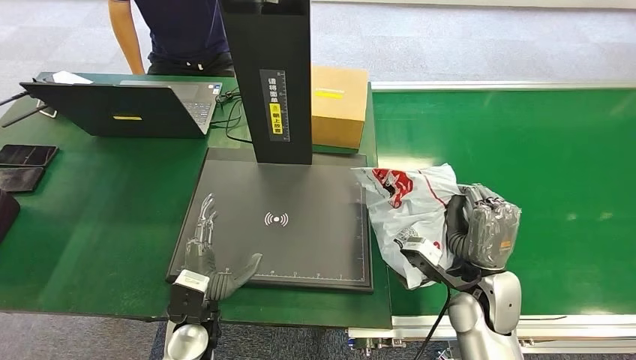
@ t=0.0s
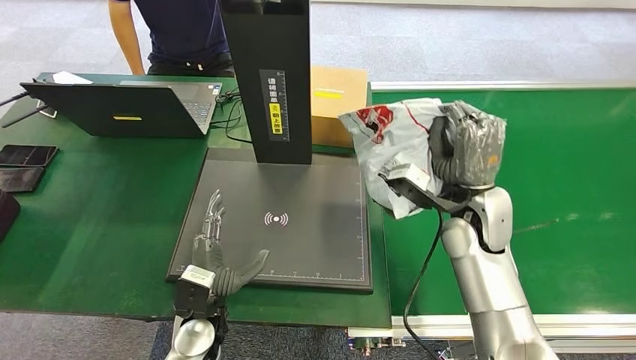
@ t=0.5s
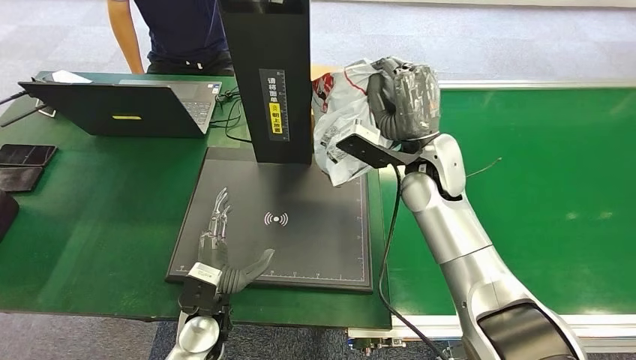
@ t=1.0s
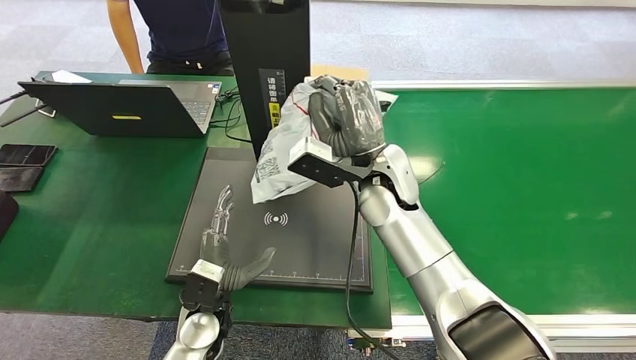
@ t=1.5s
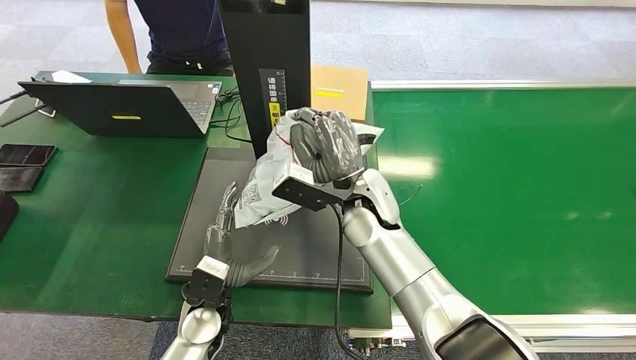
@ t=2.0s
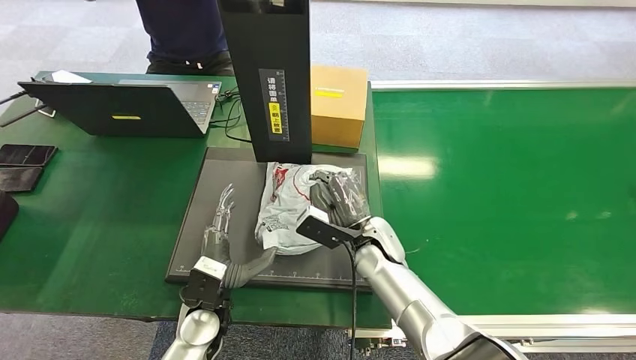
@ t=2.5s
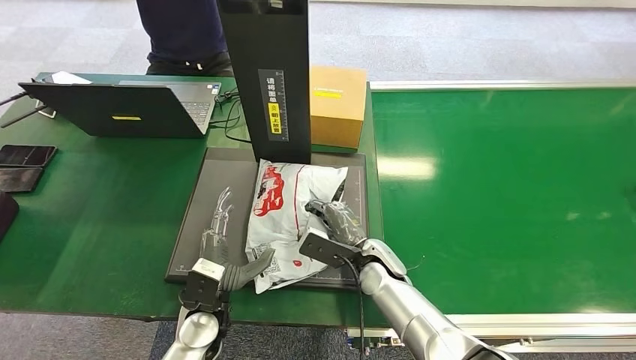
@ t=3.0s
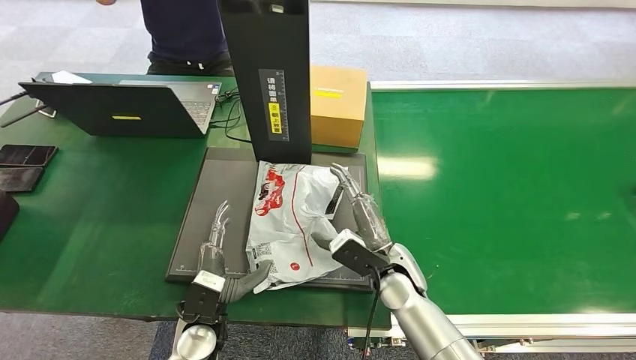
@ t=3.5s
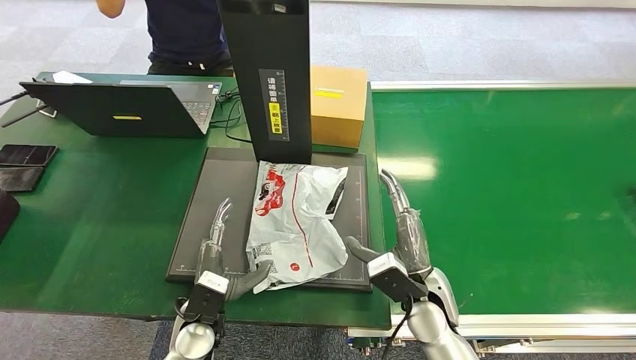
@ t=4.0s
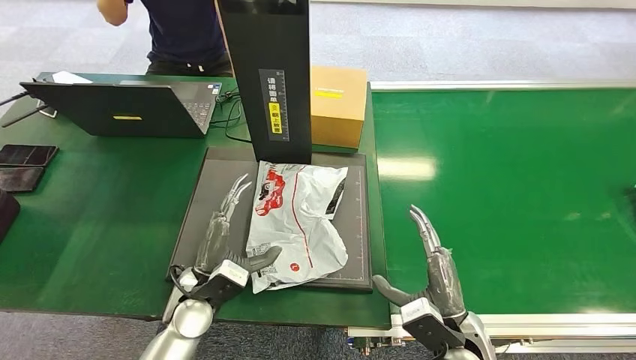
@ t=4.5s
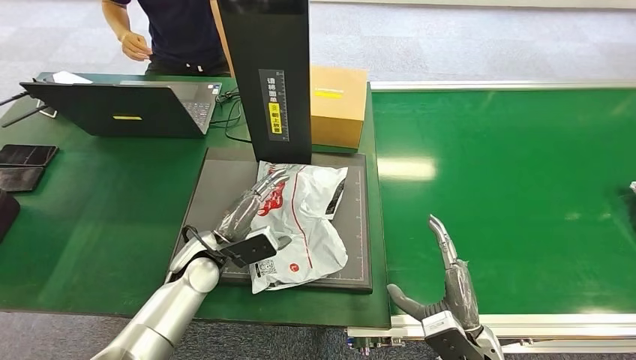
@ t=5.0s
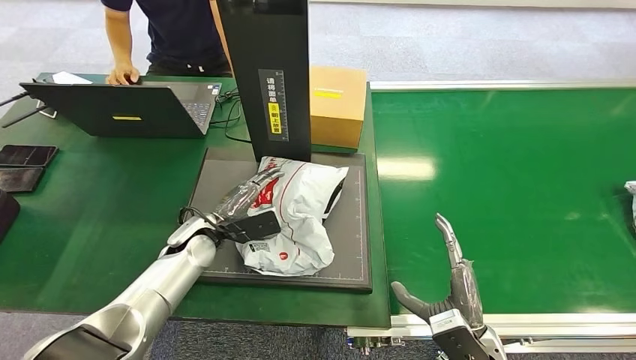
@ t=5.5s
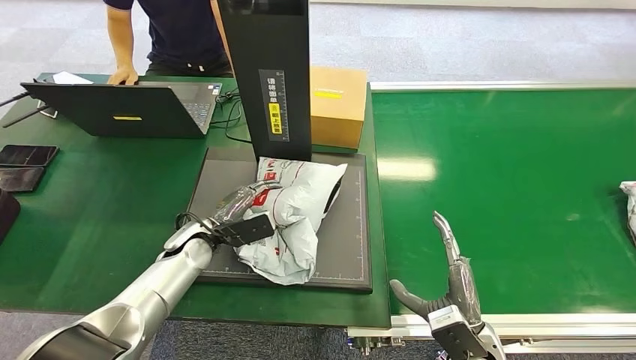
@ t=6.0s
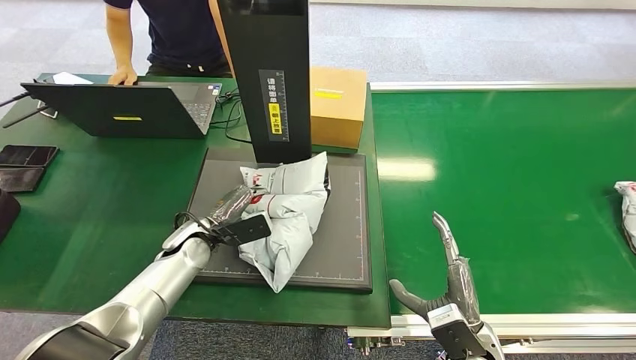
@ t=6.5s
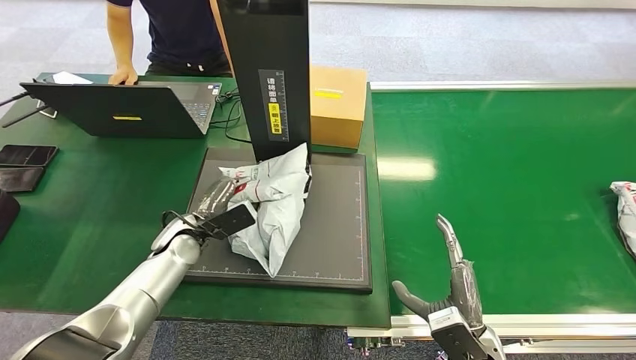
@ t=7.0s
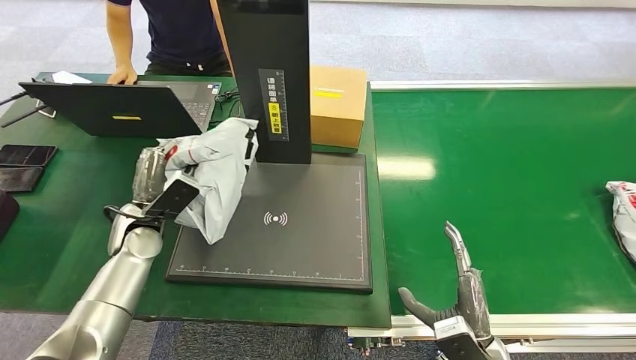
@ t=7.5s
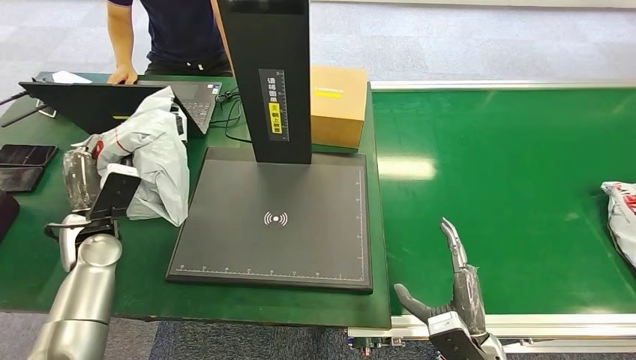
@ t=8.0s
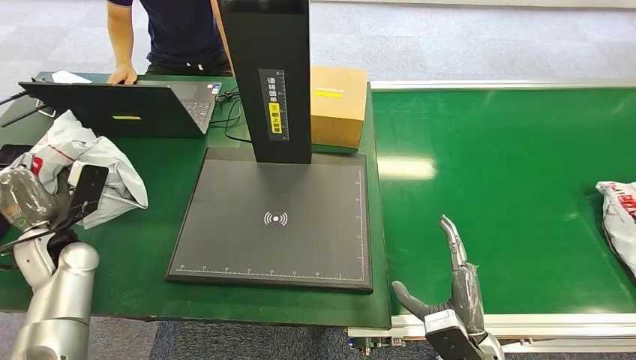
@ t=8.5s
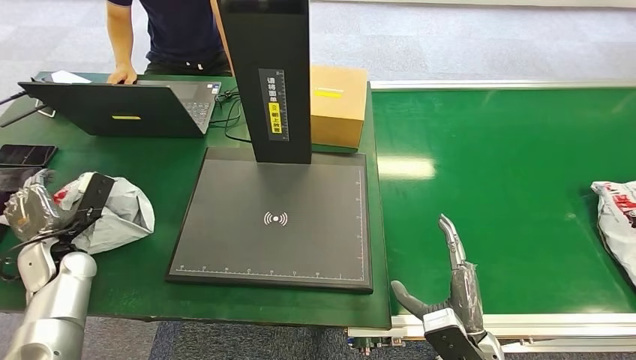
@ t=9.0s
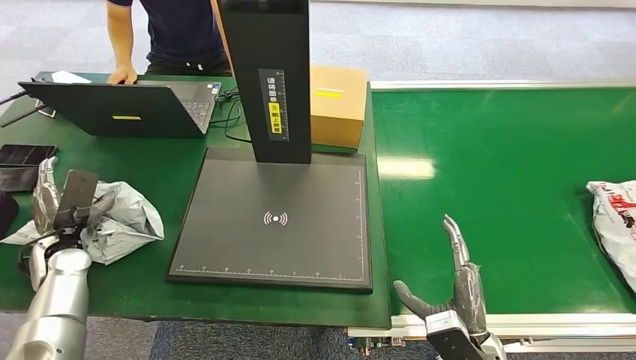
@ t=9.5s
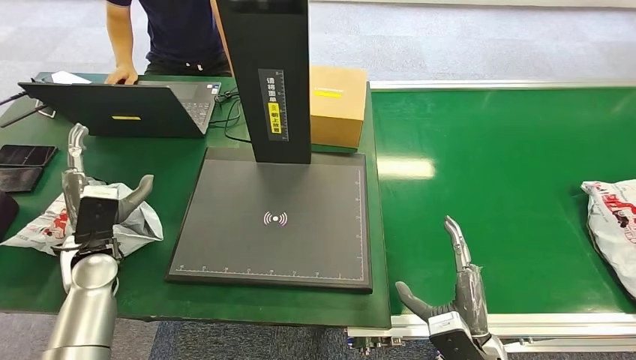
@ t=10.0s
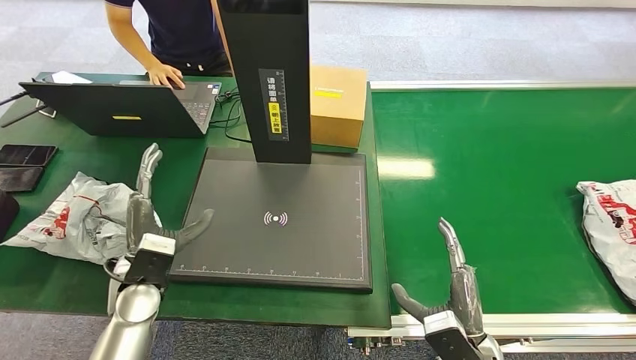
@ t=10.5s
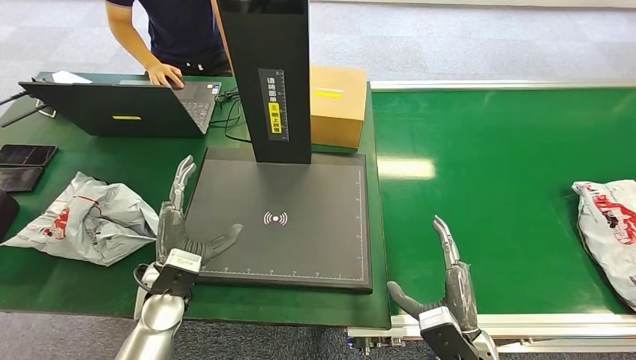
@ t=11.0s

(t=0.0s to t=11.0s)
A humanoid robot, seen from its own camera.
Step, t=1.0s - t=4.0s: Place the package onto the inbound machine.
Step, t=5.0s - t=7.5s: Pick up the package from the inbound machine.
Step, t=8.0s - t=11.0s: Place the package into the parcel locker.
t=2.0s - t=3.5s: The right hand moves downward, to the right and backward, some 15 cm.
t=3.5s - t=5.5s: The right hand moves backward and to the right, approximately 20 cm, while the left hand shifts some 15 cm forward.
t=5.5s - t=7.5s: The left hand heads to the left, covering some 10 cm.
t=7.5s - t=9.0s: The left hand shifts some 15 cm to the left.
t=9.0s - t=11.0s: The left hand is displaced to the right by approximately 20 cm.

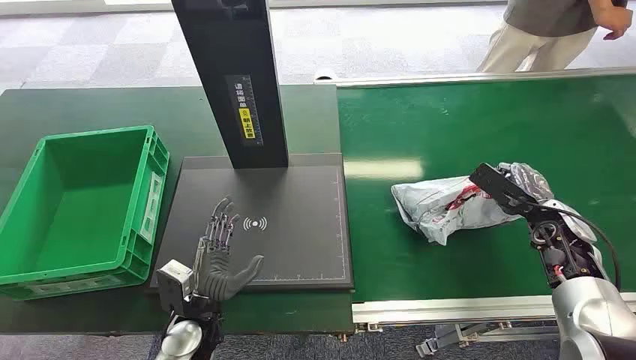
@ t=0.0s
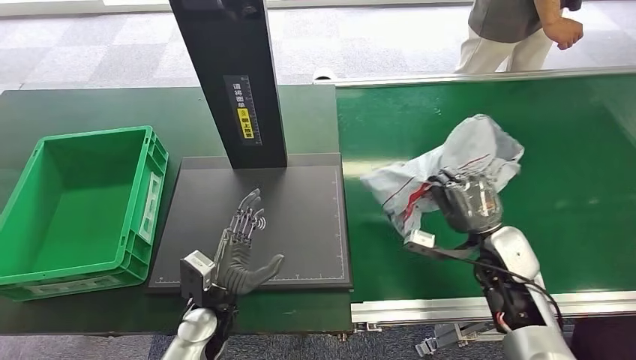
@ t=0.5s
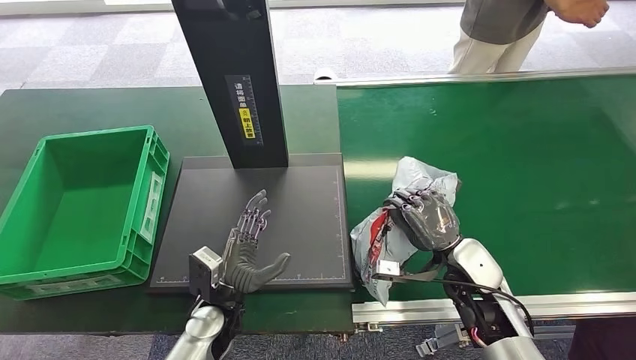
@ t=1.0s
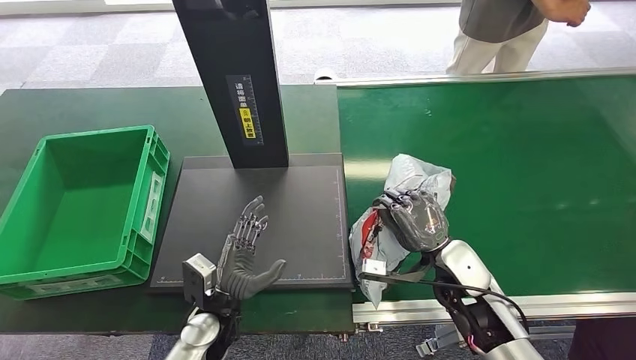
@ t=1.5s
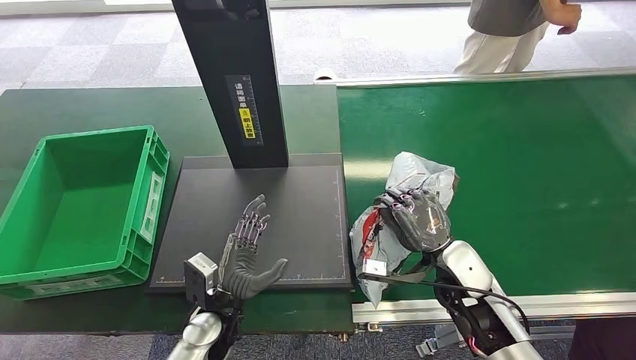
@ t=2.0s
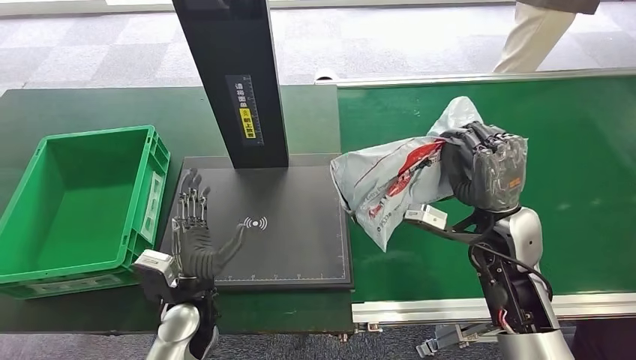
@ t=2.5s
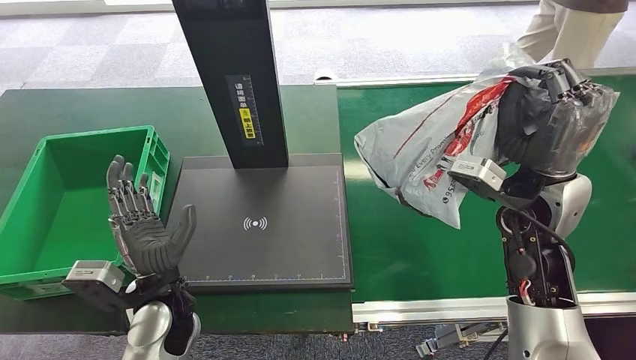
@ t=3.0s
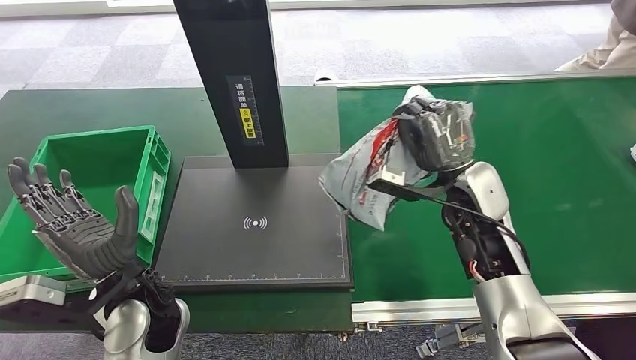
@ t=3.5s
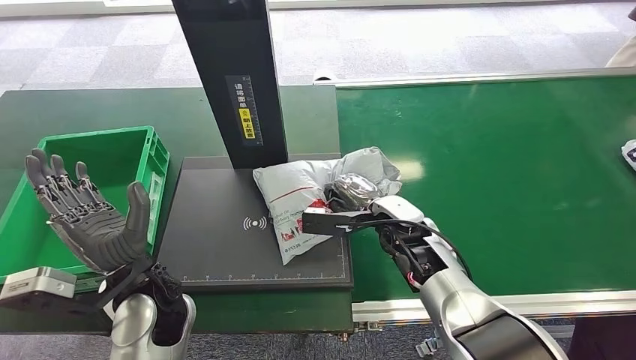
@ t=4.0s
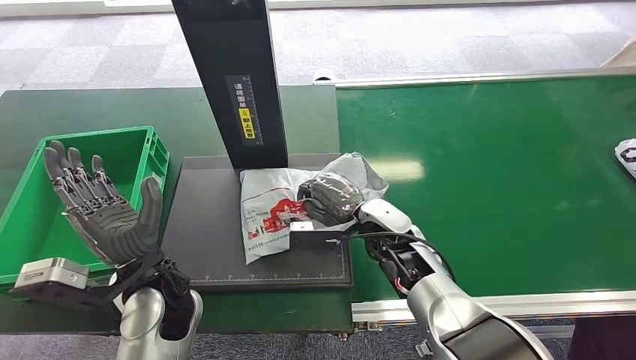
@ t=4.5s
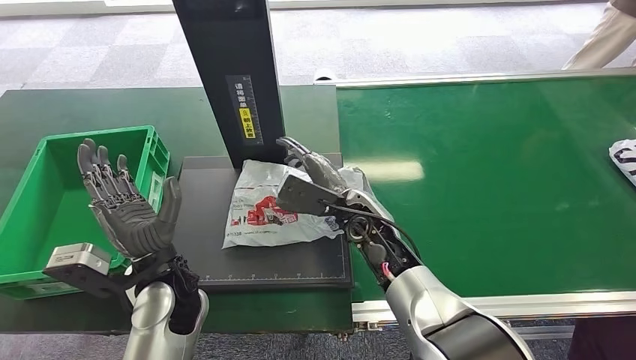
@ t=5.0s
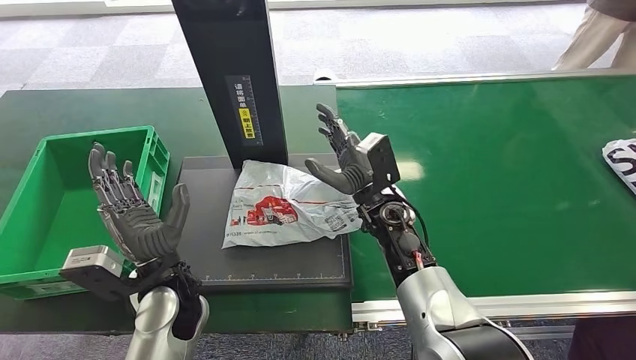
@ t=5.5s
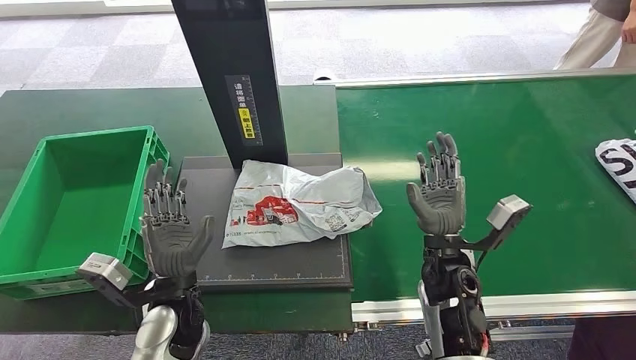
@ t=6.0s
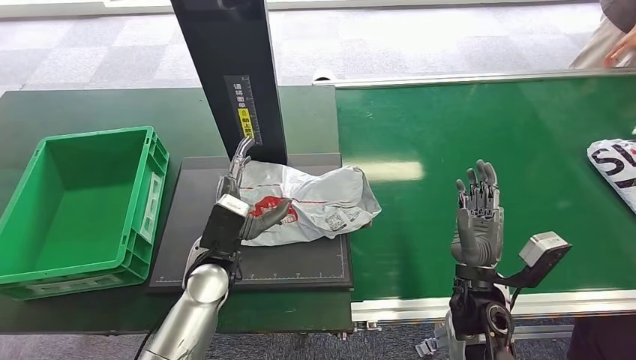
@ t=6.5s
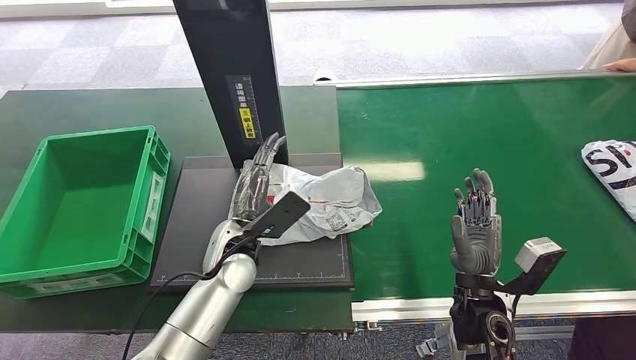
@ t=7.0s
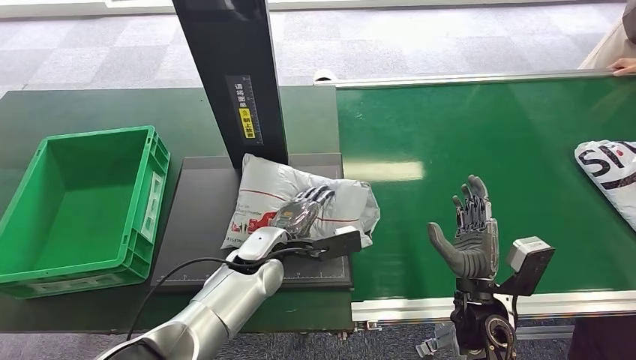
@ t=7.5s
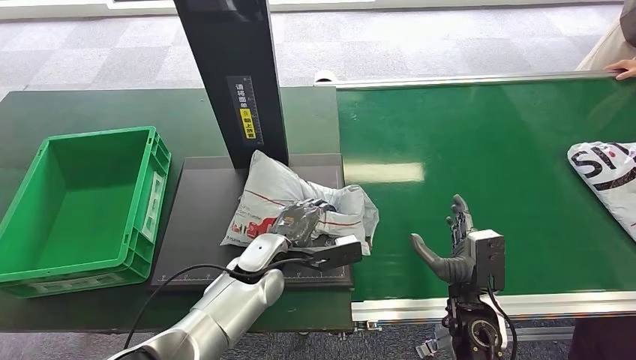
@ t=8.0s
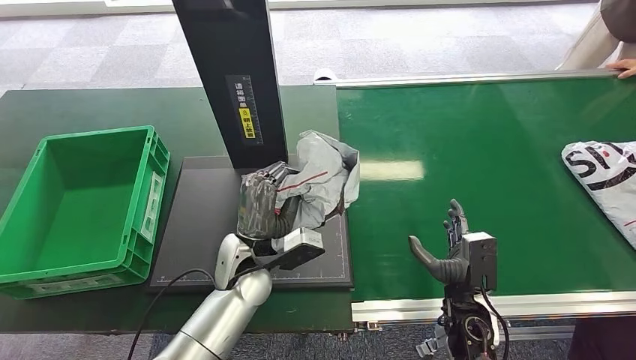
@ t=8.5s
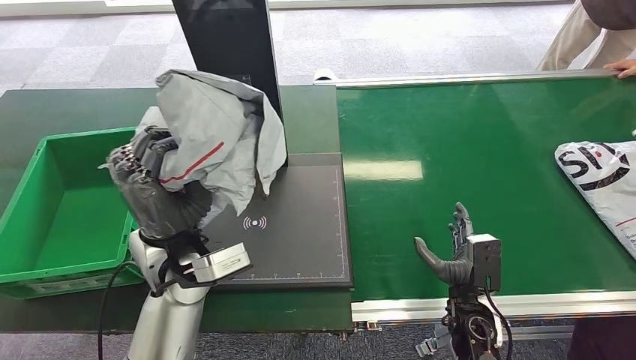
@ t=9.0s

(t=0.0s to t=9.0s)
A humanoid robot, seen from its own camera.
Step, t=0.0s - t=2.5s: Pick up the package from the conveyor belt.
Step, t=3.0s - t=6.0s: Place the package onto the inbound machine.
